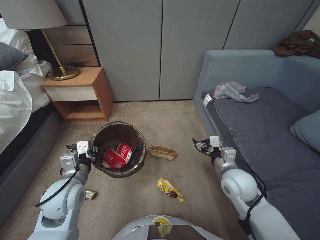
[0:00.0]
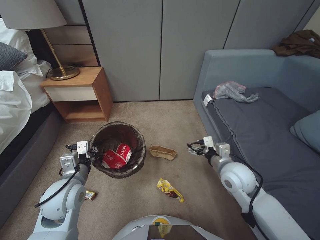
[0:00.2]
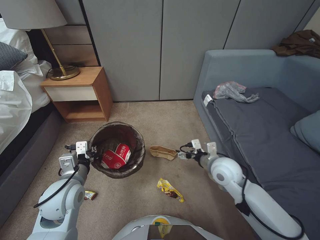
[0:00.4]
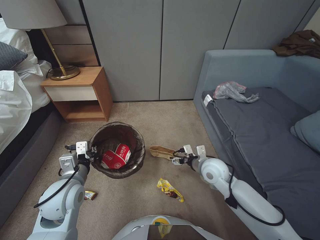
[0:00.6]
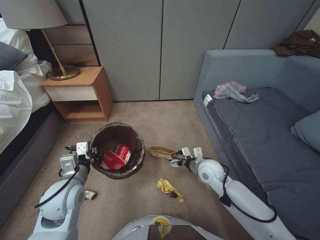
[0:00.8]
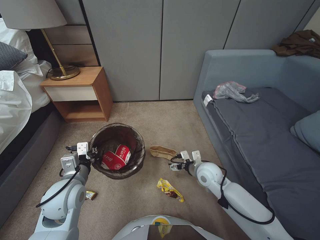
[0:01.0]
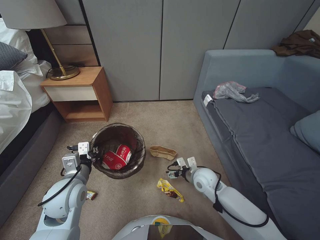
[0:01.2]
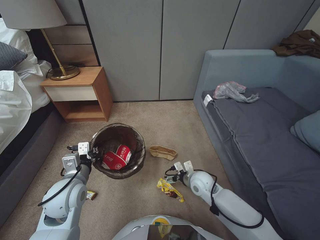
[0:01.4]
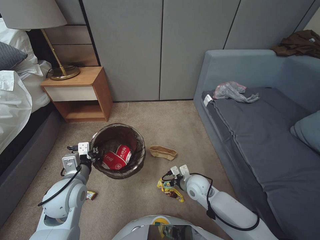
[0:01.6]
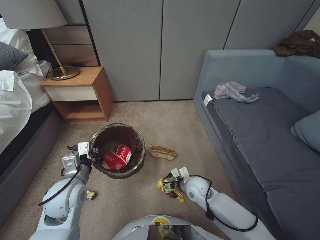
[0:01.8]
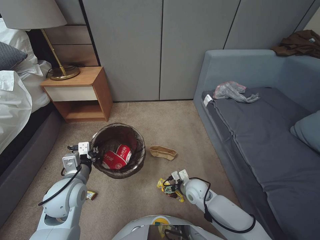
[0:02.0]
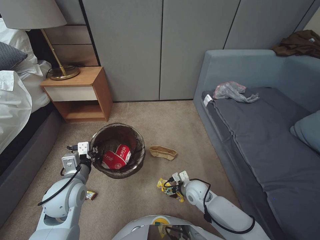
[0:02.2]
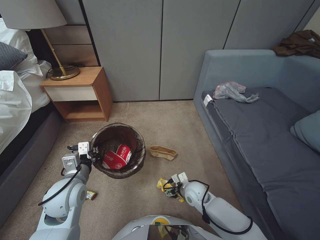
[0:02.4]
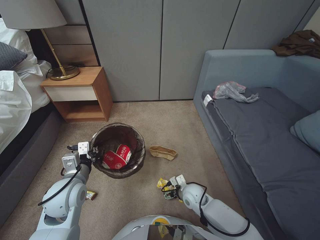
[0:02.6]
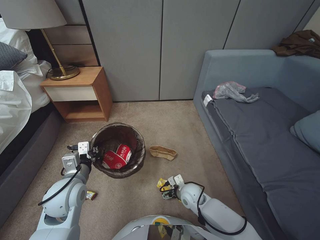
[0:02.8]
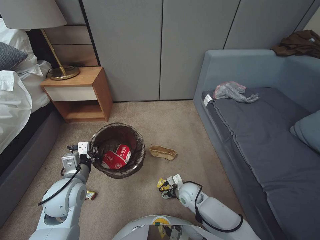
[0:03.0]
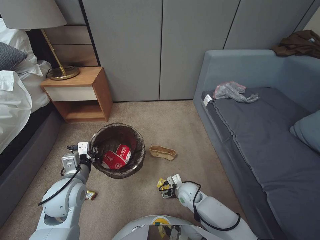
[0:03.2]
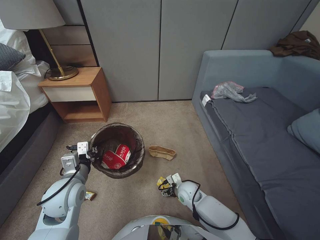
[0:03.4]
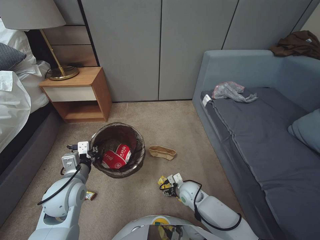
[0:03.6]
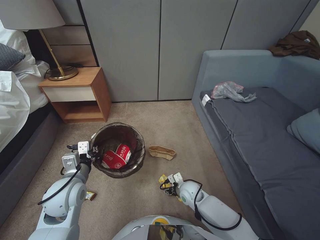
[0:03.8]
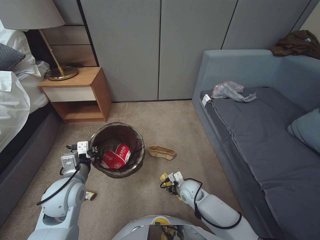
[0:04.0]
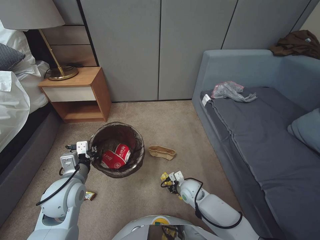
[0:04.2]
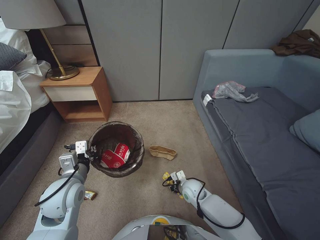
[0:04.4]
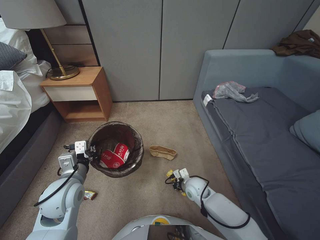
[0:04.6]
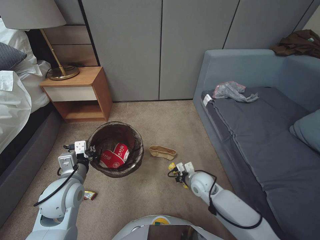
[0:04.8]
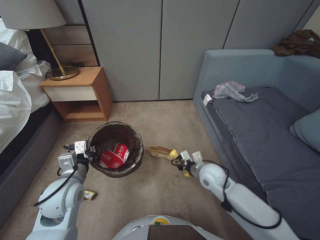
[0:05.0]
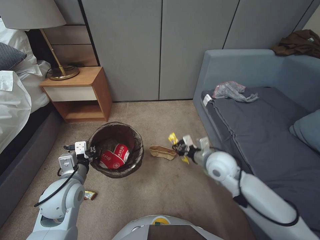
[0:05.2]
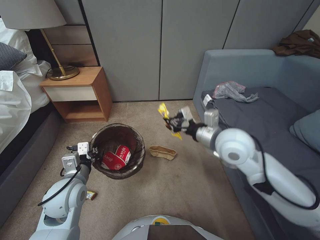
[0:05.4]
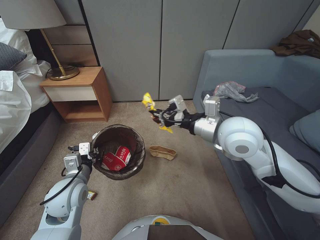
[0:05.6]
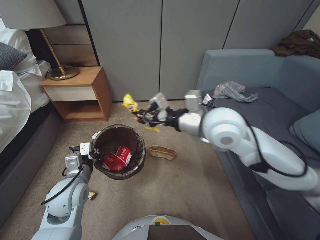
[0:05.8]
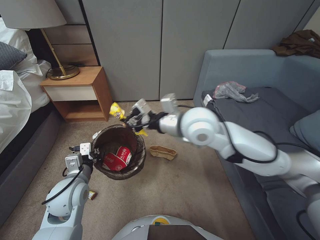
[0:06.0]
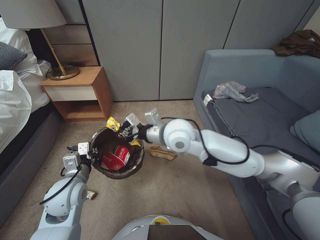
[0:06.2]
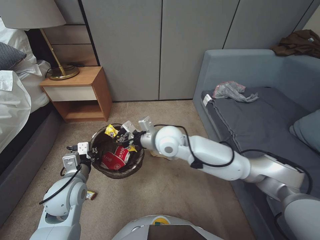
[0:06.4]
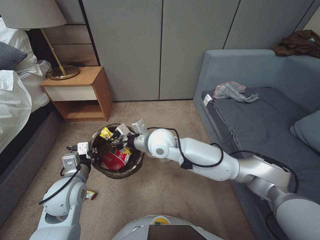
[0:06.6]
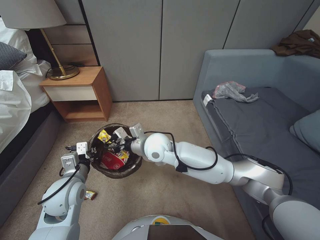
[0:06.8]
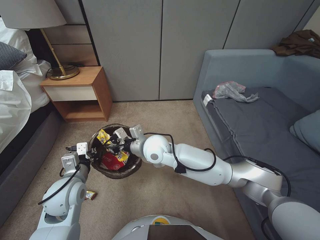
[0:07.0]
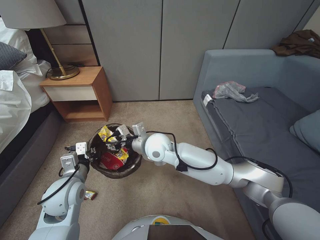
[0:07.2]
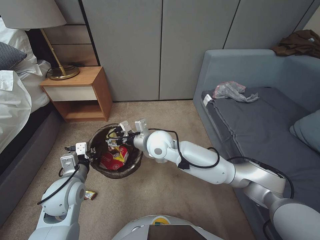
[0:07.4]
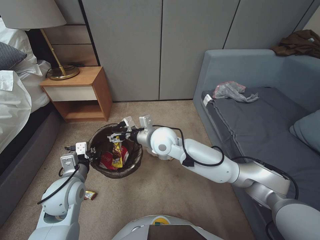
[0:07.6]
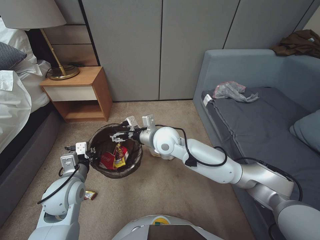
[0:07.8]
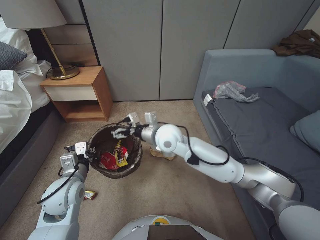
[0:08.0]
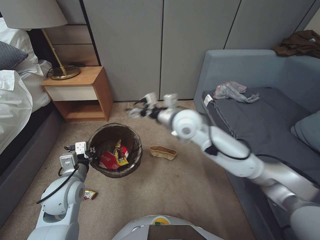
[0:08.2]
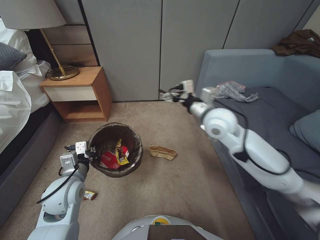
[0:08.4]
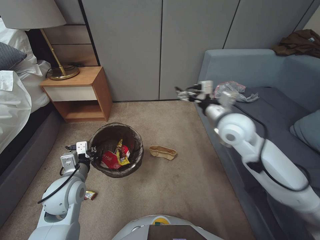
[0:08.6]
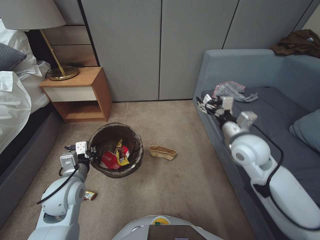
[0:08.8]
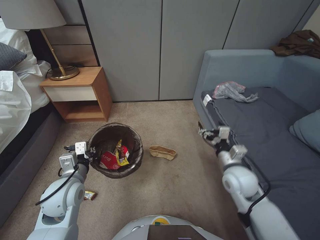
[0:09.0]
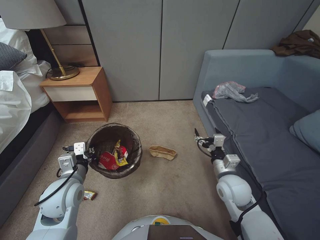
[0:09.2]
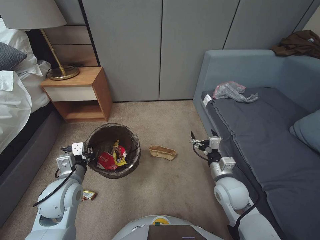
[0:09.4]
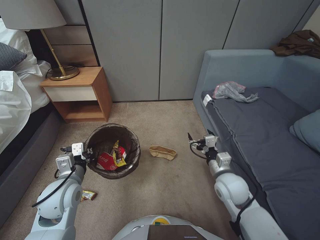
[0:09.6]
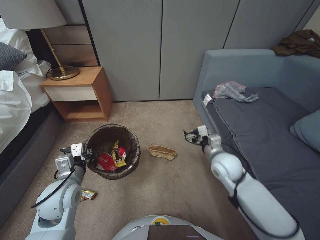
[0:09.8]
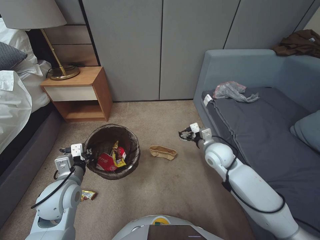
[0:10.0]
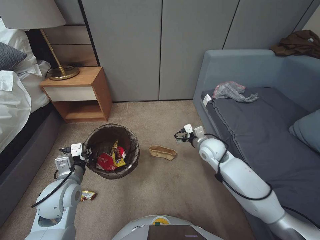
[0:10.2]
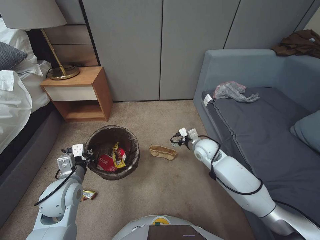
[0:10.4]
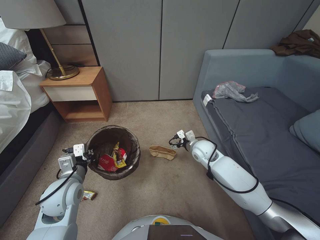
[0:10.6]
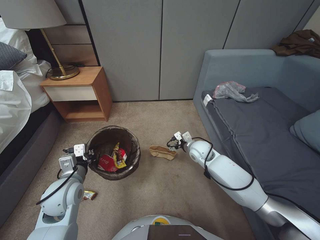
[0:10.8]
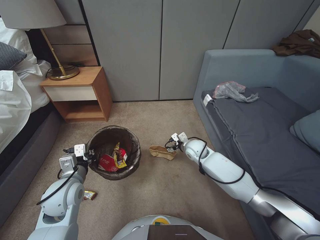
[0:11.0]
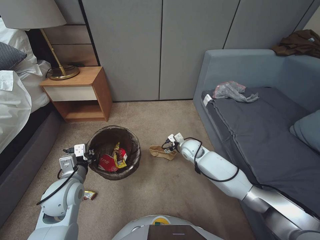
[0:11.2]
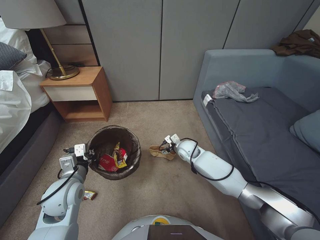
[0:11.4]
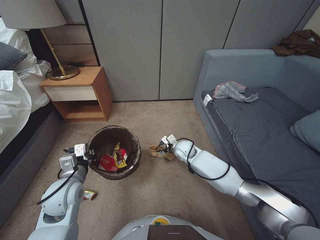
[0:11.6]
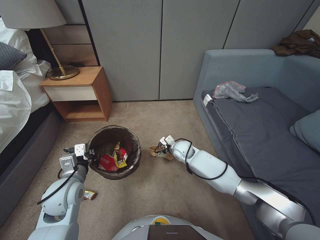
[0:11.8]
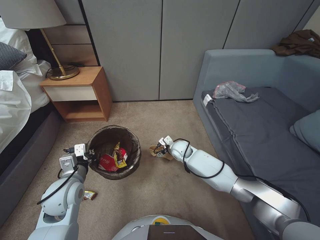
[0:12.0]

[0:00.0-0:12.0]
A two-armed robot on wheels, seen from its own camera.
Task of the whole recording: Pick up the trash bin, then pick up the garbage from the floor and place it into the trash bin.
0:00.0 to 0:01.6: The right gripper is displaced downward and to the left by roughly 15 cm.
0:01.6 to 0:03.0: The right gripper goes roughly 5 cm downward.
0:03.0 to 0:04.4: The right gripper closes.
0:04.4 to 0:06.0: The right gripper is displaced upward by about 40 cm.
0:06.0 to 0:07.6: The right gripper heads downward and to the left, covering approximately 15 cm, and opens up.
0:07.6 to 0:09.0: The right gripper heads to the right, covering roughly 25 cm.
0:09.0 to 0:10.4: The right gripper travels forward and to the left by approximately 10 cm.
0:10.4 to 0:12.0: The right gripper moves downward, to the left and forward, approximately 20 cm.

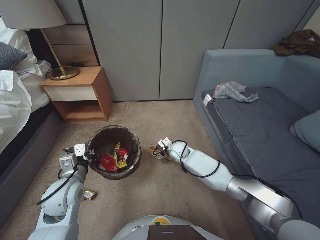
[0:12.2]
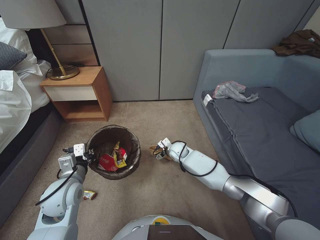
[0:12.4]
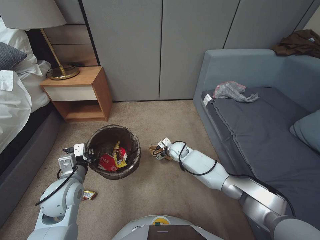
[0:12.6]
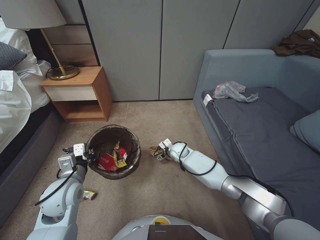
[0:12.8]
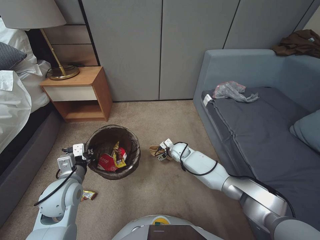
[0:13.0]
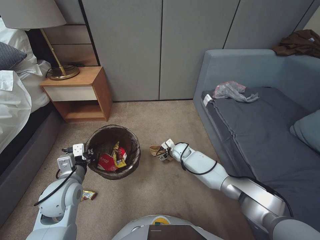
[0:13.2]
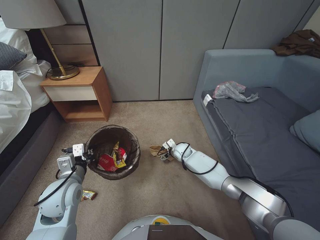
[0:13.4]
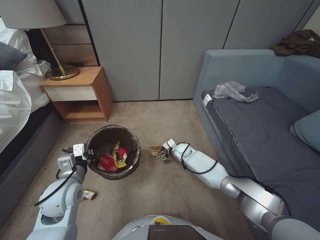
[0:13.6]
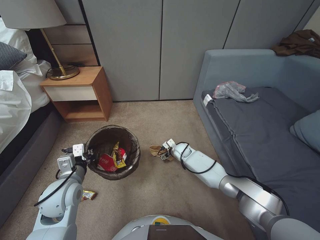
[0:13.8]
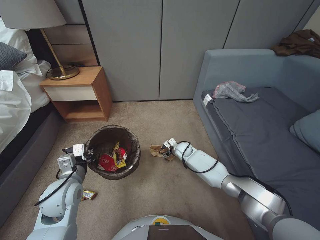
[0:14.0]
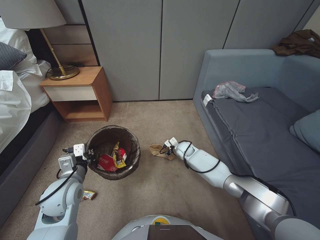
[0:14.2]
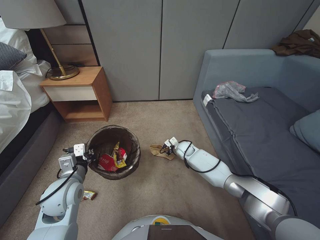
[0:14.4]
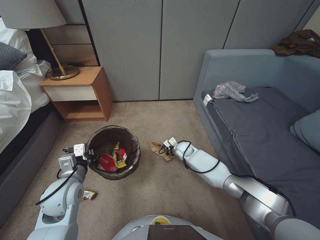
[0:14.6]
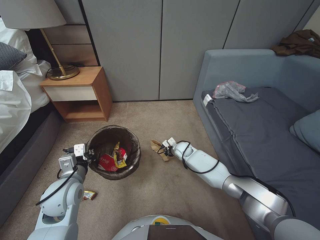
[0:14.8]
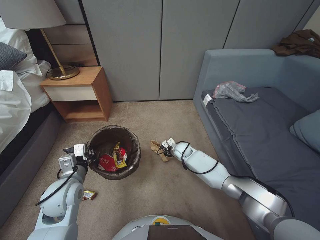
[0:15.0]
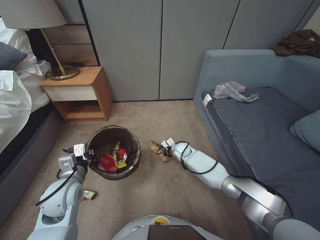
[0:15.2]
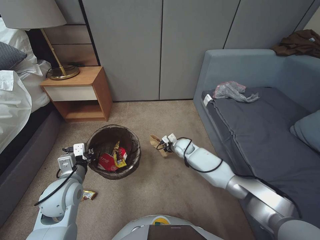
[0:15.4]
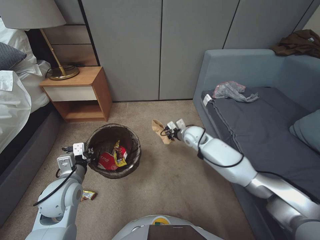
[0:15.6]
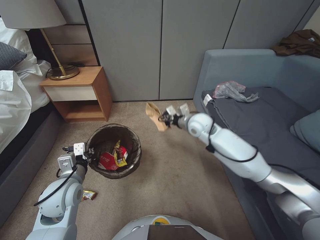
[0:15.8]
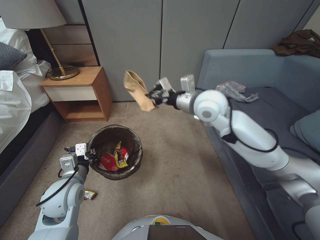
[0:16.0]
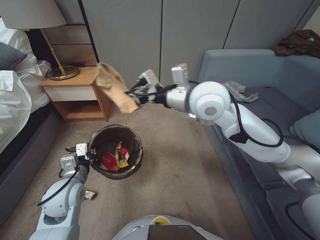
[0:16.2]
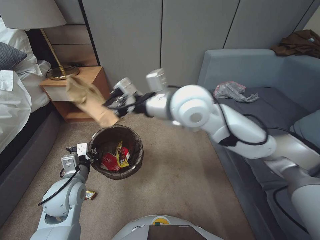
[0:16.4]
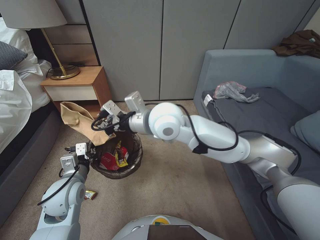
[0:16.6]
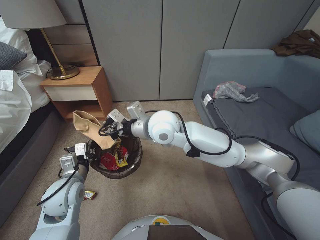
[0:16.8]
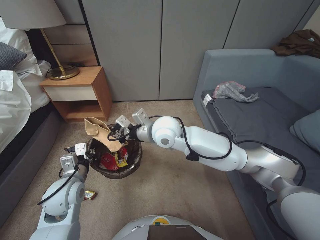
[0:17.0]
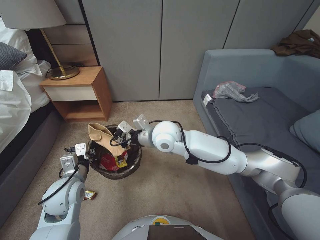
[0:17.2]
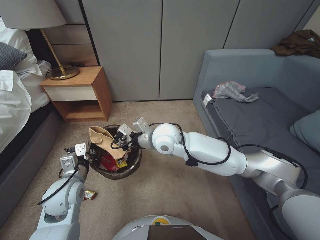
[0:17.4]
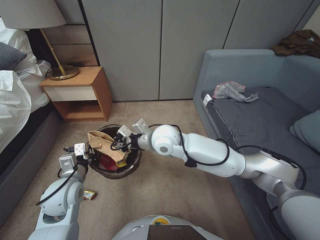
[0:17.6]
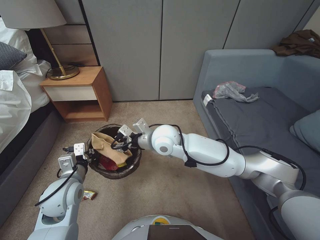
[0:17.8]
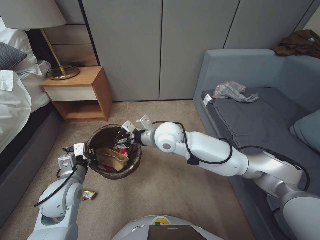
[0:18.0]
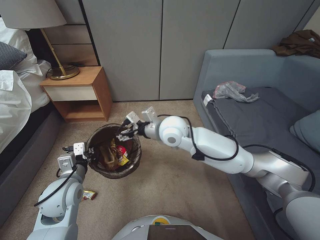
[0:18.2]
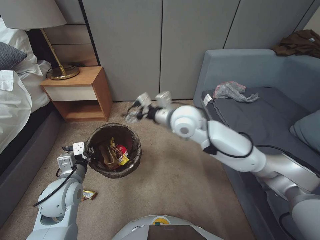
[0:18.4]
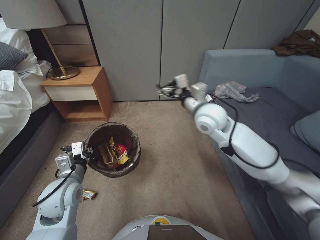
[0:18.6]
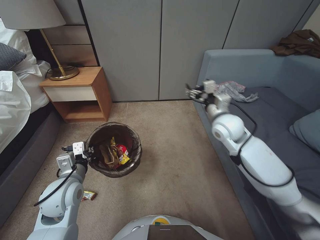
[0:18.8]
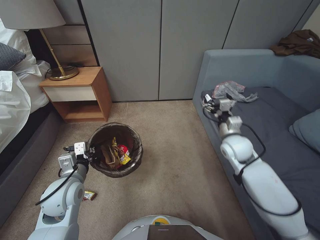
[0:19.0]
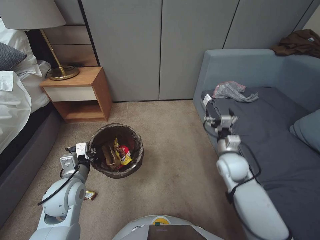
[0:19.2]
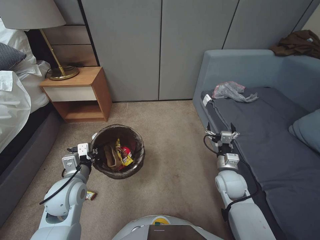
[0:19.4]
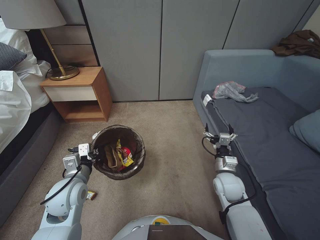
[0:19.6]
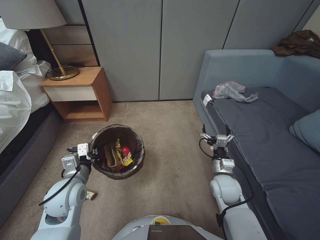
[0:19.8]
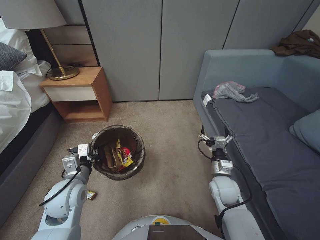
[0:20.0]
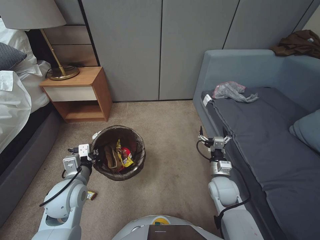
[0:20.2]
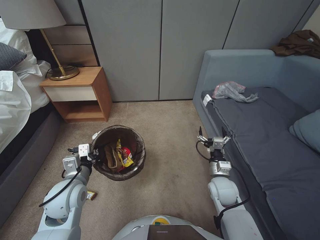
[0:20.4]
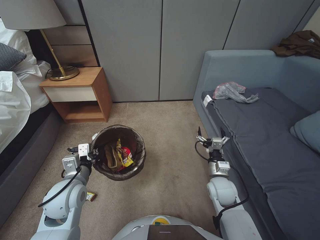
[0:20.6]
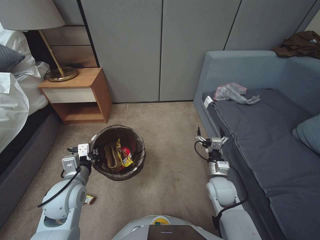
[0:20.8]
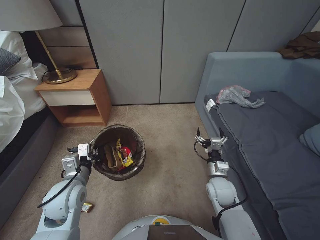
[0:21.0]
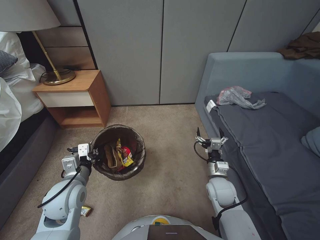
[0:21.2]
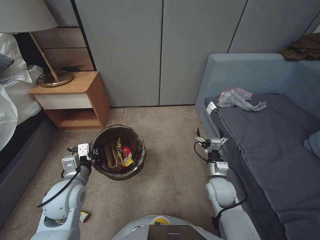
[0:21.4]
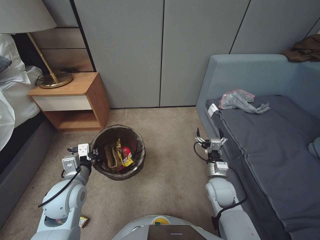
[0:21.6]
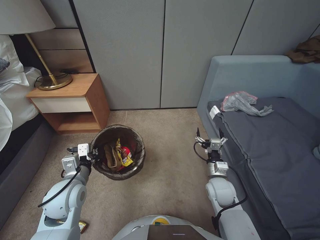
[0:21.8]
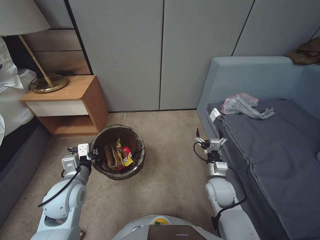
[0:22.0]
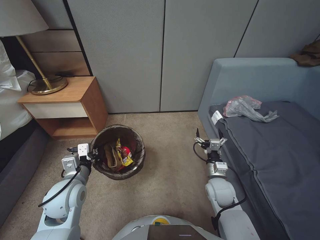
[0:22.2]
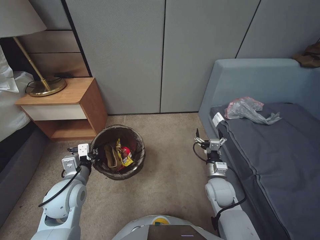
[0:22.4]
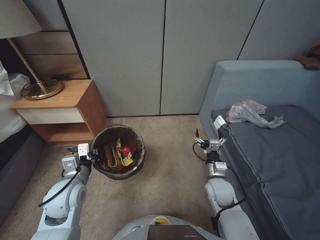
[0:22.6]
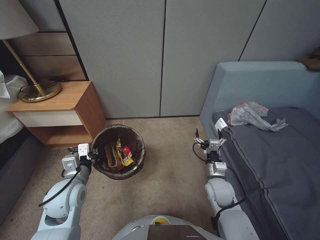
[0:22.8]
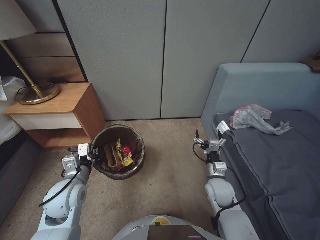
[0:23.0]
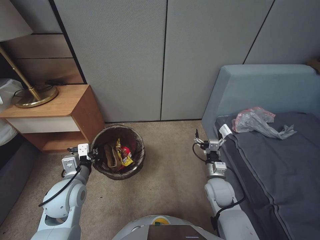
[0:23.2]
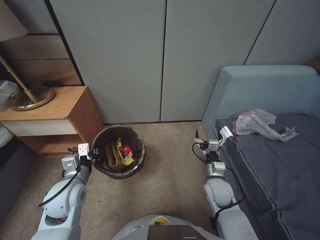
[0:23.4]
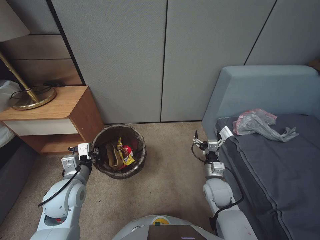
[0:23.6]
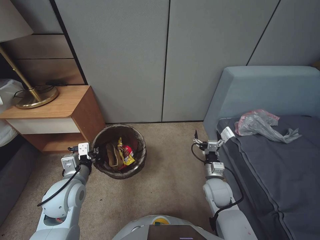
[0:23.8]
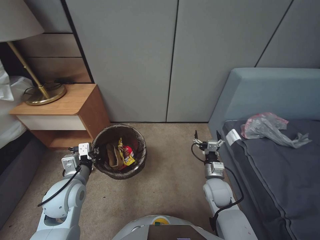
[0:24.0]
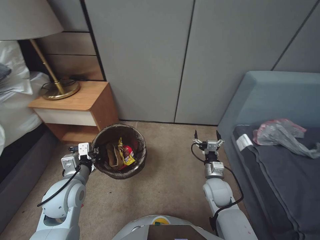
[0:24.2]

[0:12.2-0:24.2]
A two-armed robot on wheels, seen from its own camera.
Task of the whole recording: Pick up the trash bin, then pick up the garbage from the floor and place it into the trash bin.
0:12.2 to 0:13.8: The right gripper is displaced downward by roughly 5 cm.
0:13.8 to 0:15.2: The right gripper closes.
0:15.2 to 0:16.6: The right gripper heads upward, covering roughly 40 cm.
0:16.6 to 0:18.2: The right gripper shifts some 10 cm downward, and opens up.
0:18.2 to 0:19.8: The right gripper shifts approximately 30 cm to the right, downward and backward.
0:19.8 to 0:21.2: The grippers make only small movements.
